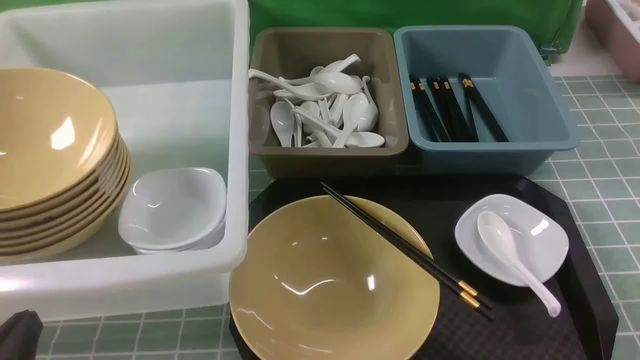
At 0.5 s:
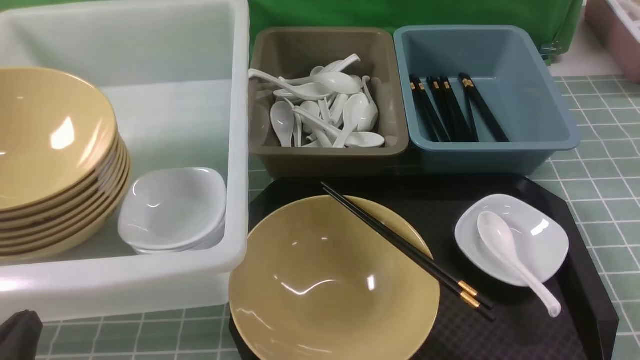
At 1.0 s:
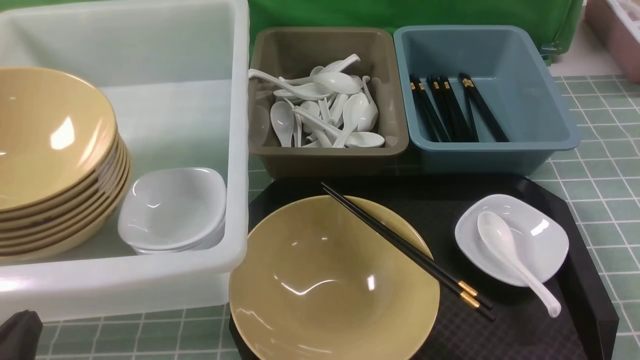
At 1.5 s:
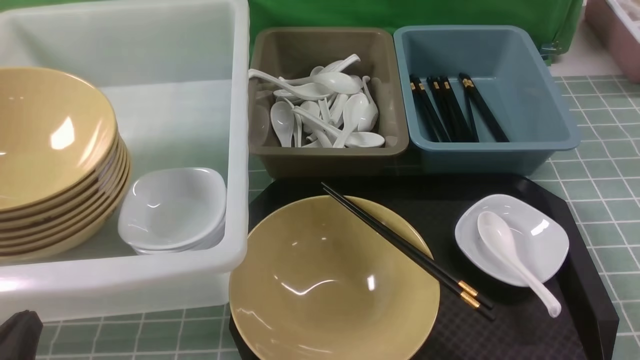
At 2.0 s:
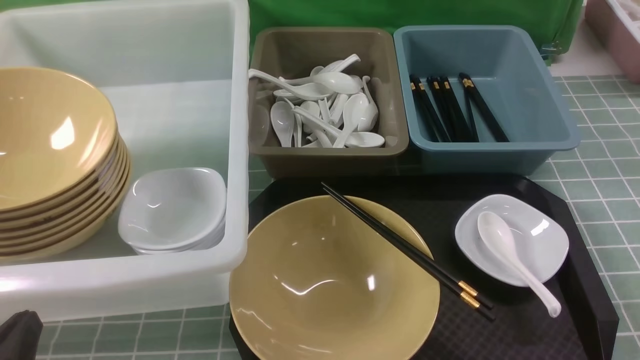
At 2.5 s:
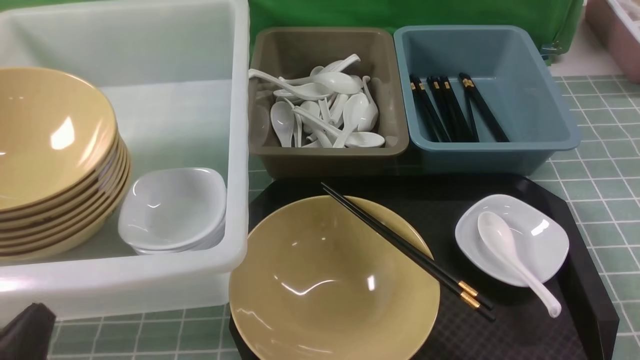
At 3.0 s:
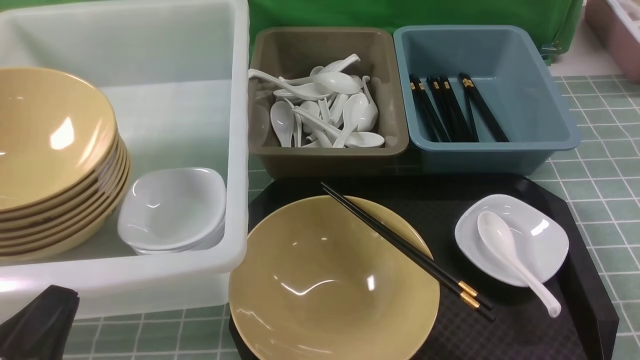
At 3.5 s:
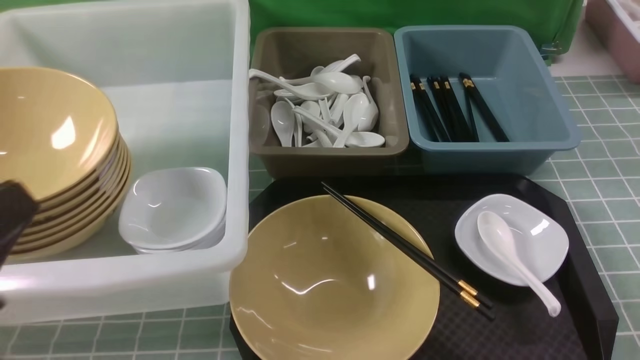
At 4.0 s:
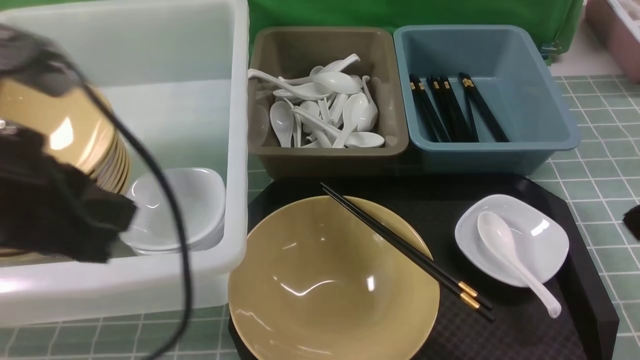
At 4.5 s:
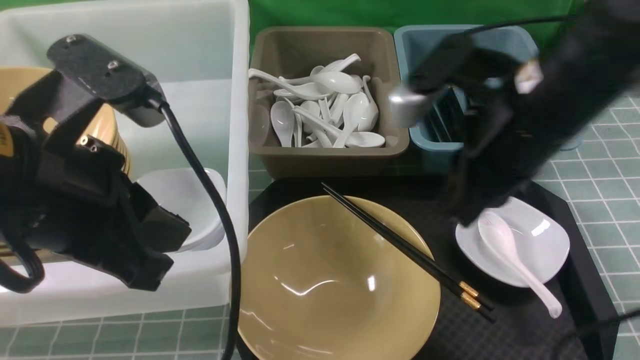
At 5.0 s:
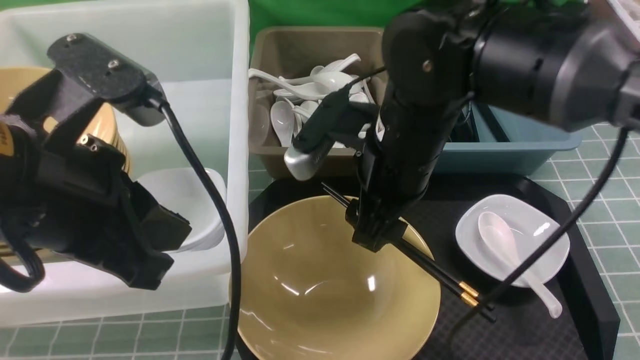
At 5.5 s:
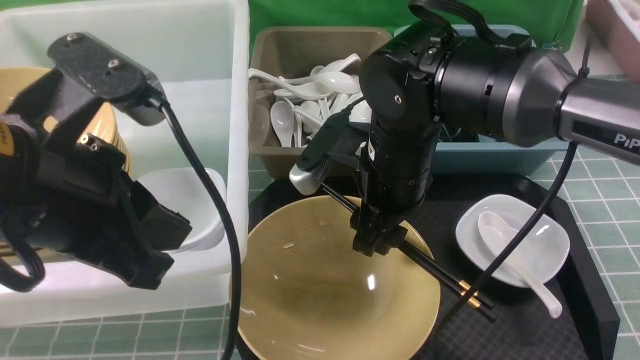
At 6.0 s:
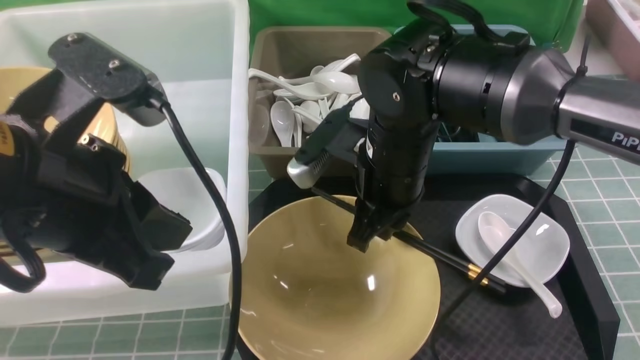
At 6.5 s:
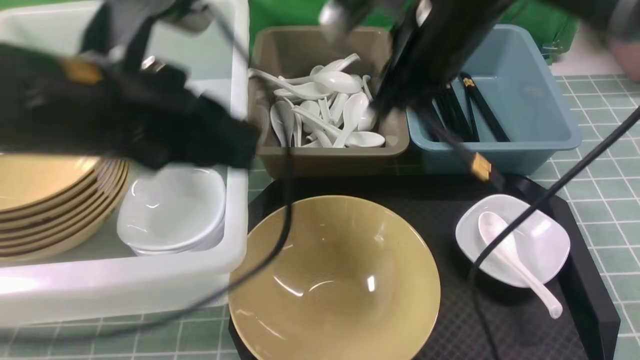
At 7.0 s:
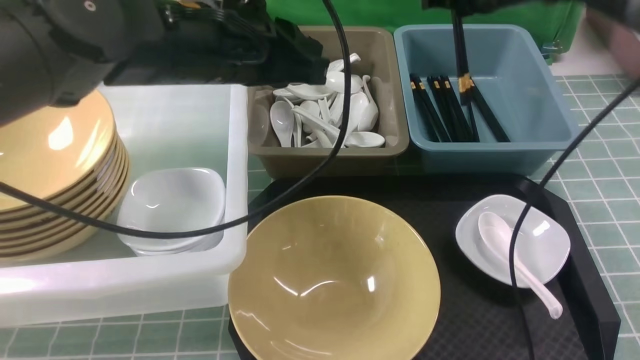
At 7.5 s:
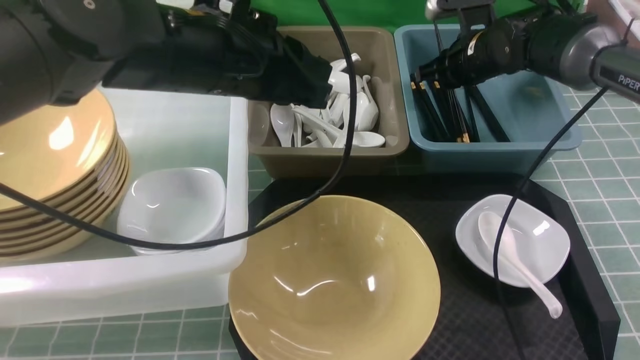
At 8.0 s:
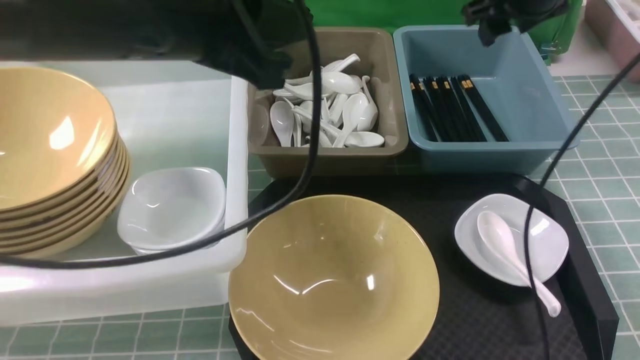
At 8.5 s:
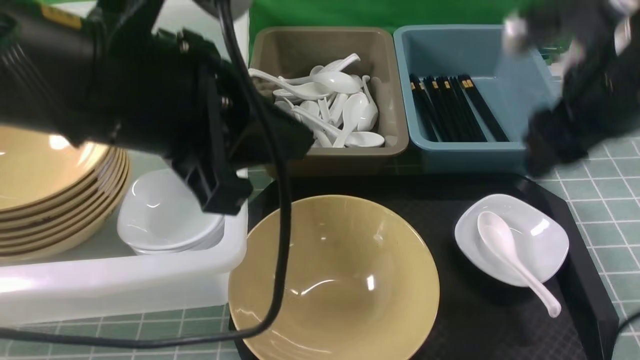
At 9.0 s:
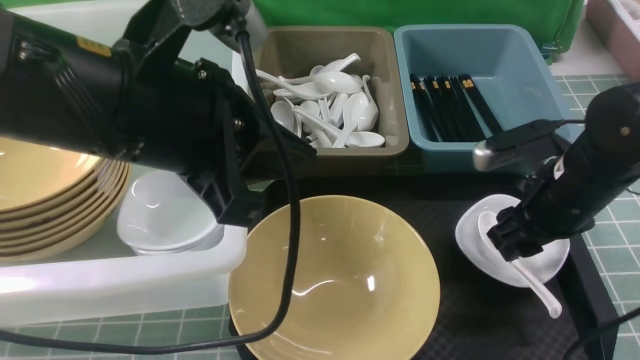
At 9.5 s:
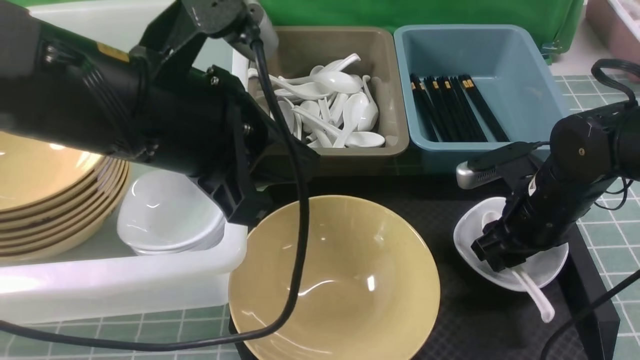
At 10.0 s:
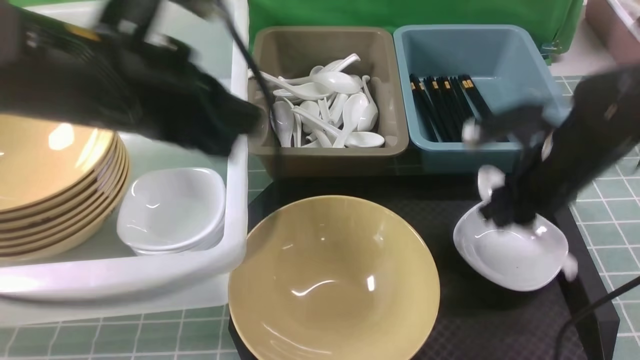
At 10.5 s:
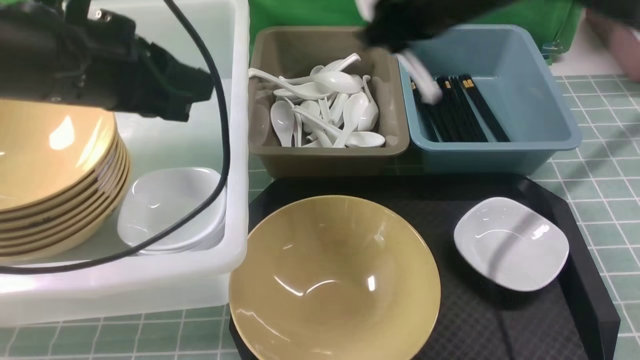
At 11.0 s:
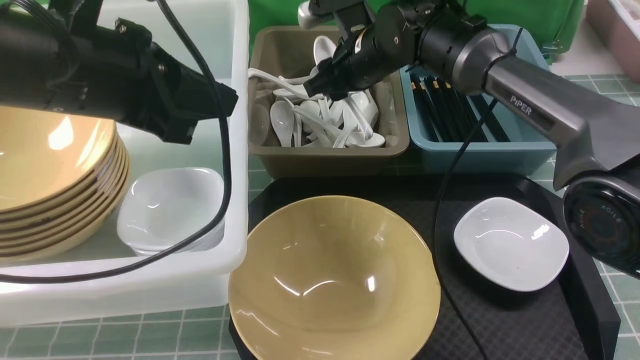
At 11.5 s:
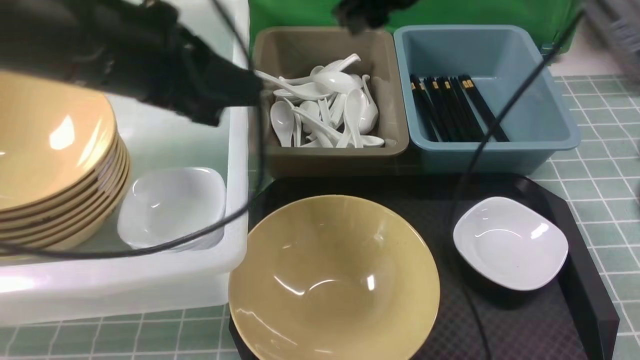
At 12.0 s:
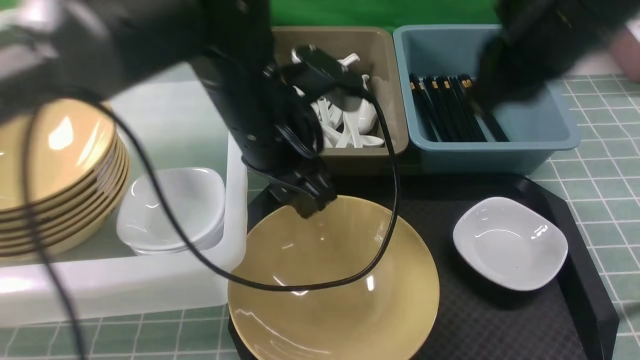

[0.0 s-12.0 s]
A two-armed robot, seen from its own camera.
Task of the whole recording: on blue table put chopsticks spoon bowls plates into blue grey white boxes.
Step, 0.0 to 6.0 s: use the right arm to grab the chopsticks.
Step, 6.5 to 7.5 s: use the right arm to put the chopsticks into the small storage box on the right.
Step, 8.5 to 10.0 s: use the right arm to grab the soup spoon in the middle.
Step, 10.5 to 11.0 s: use the right arm to put the soup spoon into the small storage box in the middle.
0.0 to 2.0 s: Neither gripper changes place.
2.0 to 4.0 s: The left gripper shifts some 20 cm upward and forward.
4.0 to 6.0 s: The right gripper heads to the left, forward and downward, covering approximately 25 cm, and opens, then closes again.
6.0 to 8.0 s: The right gripper is displaced to the right, forward and upward by some 20 cm, and opens its fingers. Meanwhile the left gripper heads forward and to the right, covering about 10 cm.
8.0 to 10.0 s: The left gripper shifts by some 5 cm; the right gripper goes some 15 cm backward and downward.
10.0 to 12.0 s: The left gripper shifts about 15 cm to the right, downward and forward, and opens its fingers. Meanwhile the right gripper moves upward, about 15 cm, reaches some 15 cm forward, then returns, and closes its fingers.

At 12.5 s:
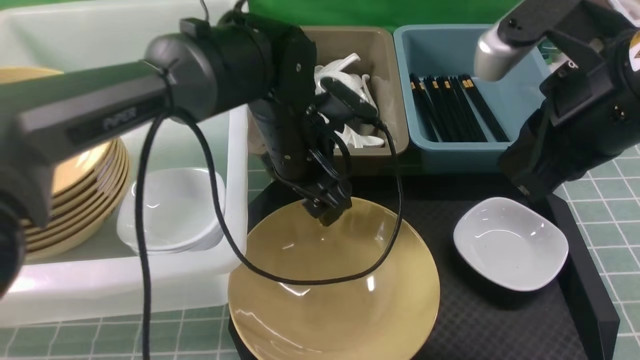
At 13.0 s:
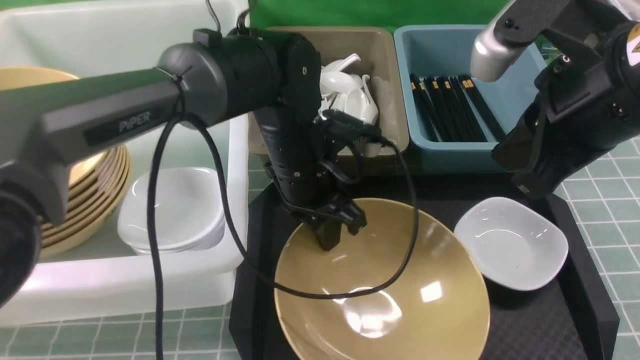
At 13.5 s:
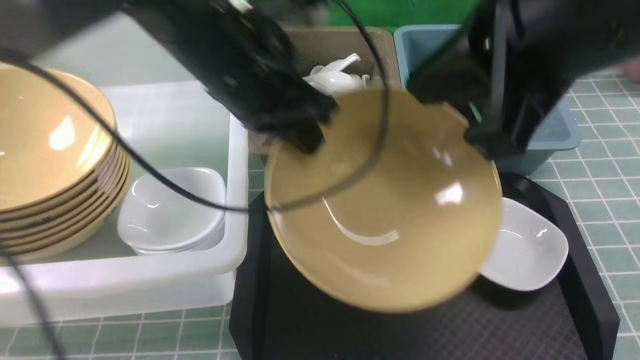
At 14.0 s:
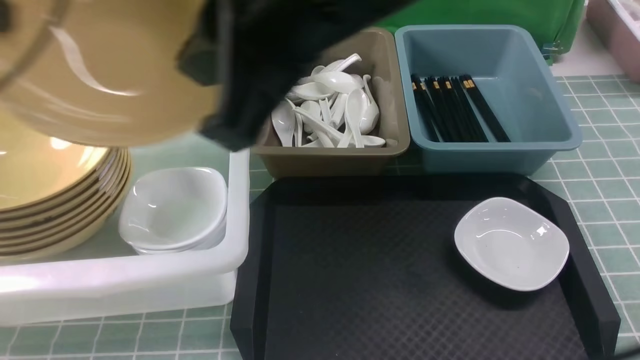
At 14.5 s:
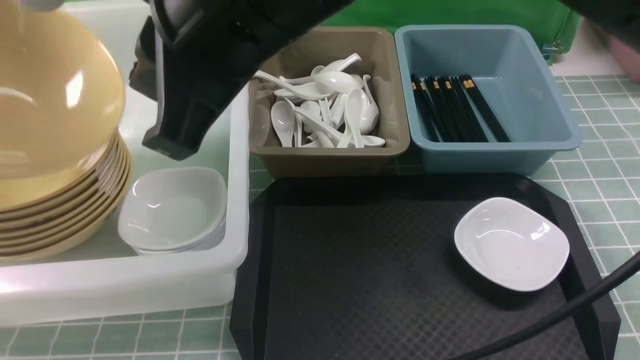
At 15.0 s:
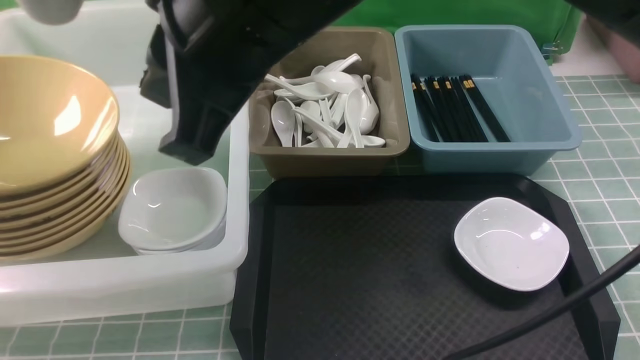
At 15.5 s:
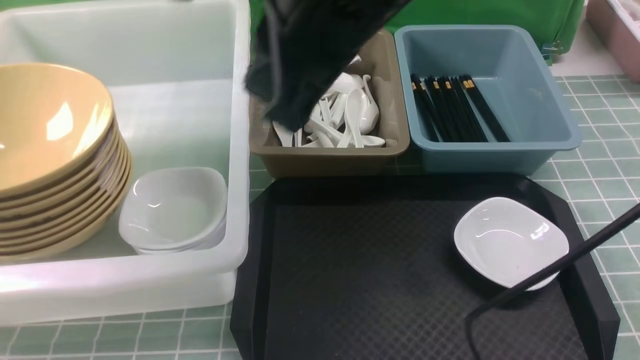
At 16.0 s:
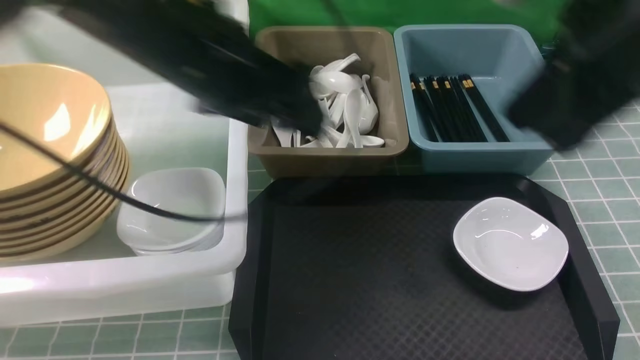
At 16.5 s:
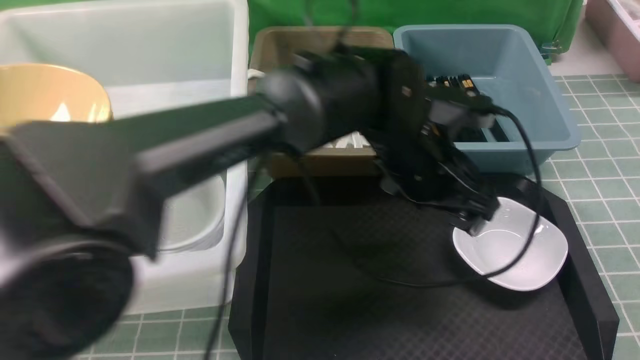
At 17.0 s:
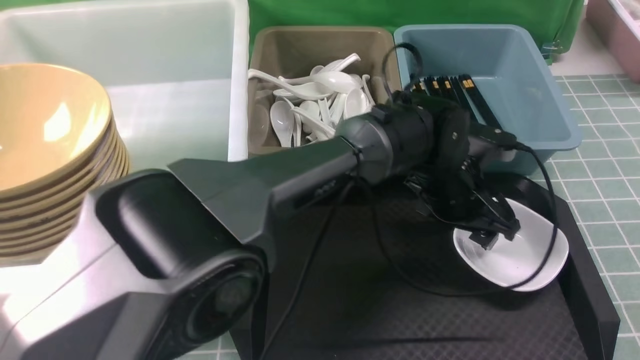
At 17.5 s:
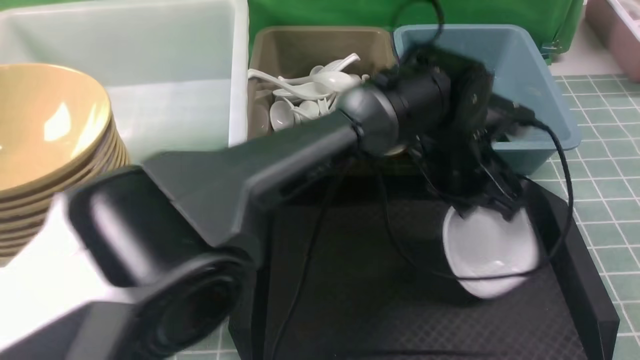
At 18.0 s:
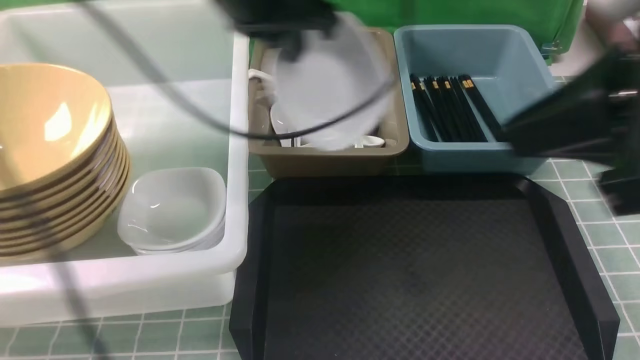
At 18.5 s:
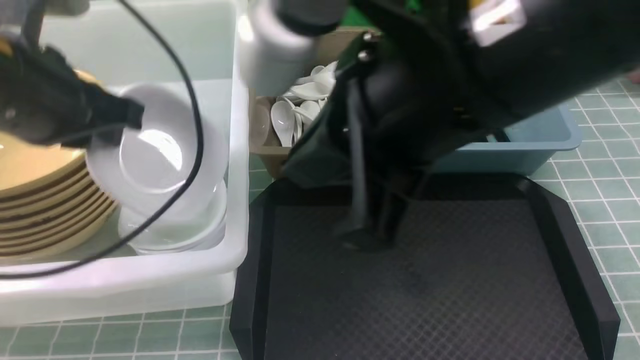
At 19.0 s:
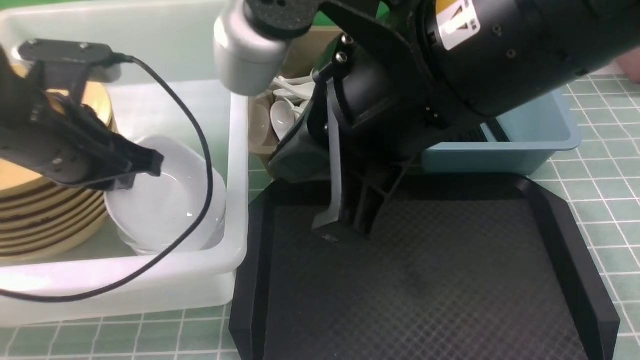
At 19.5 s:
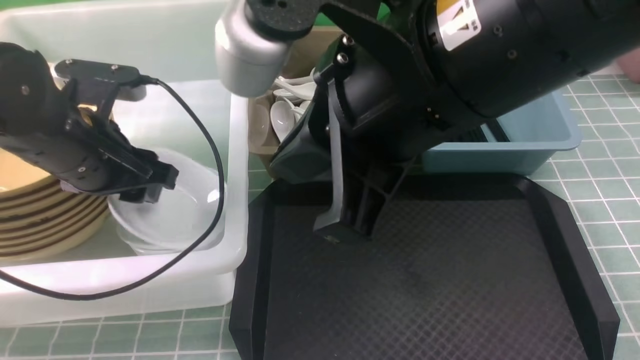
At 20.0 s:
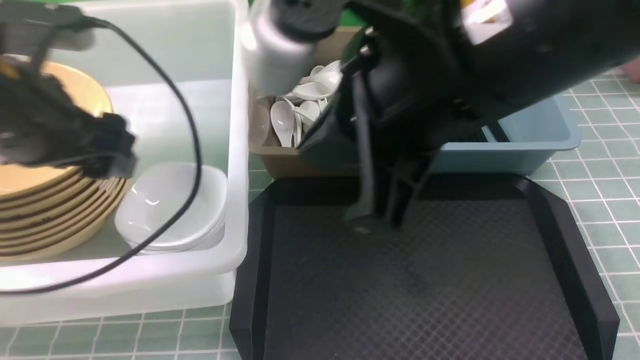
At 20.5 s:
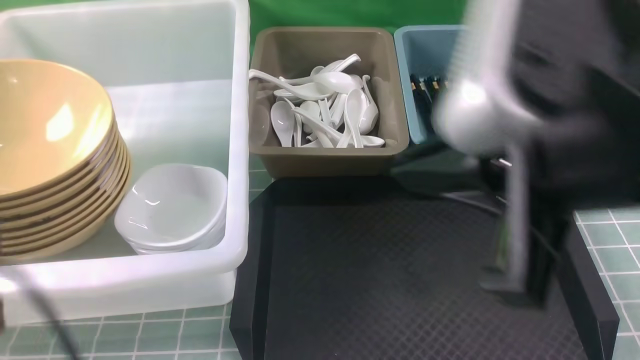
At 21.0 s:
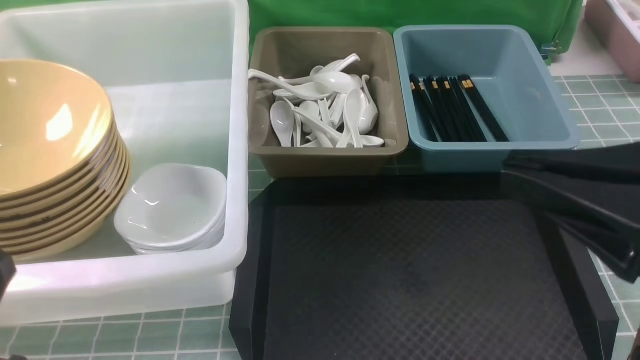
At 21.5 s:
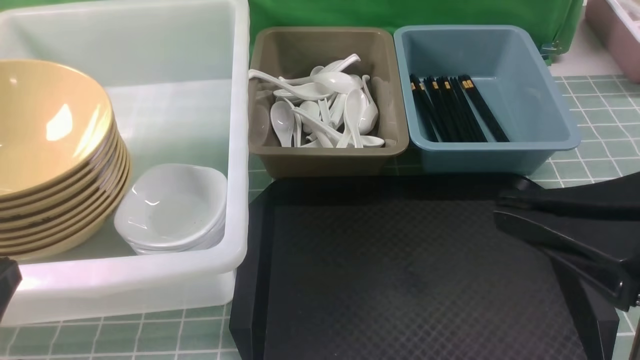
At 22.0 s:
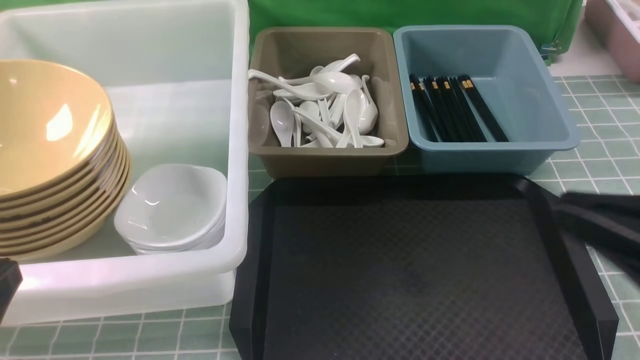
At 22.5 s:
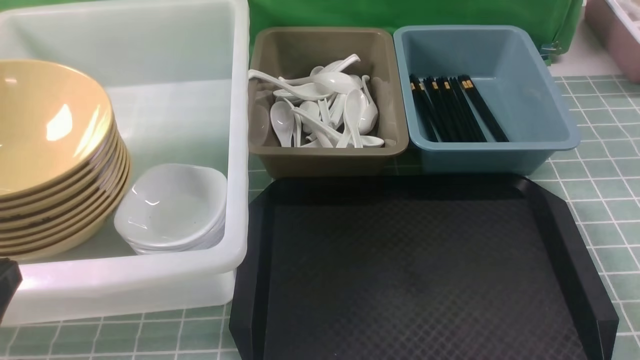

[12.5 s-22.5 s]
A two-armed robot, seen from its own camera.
Task of the whole recording: on blue table put chopsticks spoon bowls plates into blue grey white boxes.
Step, 13.5 to 15.0 s: use the left arm to put the noodle bowl into the large storage box on the left.
Step, 15.5 to 17.5 s: use the left arm to grab the plate.
Step, 18.0 to 19.5 s: use the left arm to put the plate into the large storage box on the left.
12.5 to 14.5 s: The right gripper moves to the left, some 20 cm, while the left gripper is displaced to the left by some 35 cm, and closes up.
14.5 to 16.5 s: The right gripper shifts some 30 cm to the right. The left gripper travels to the right by approximately 50 cm, and opens.
16.5 to 18.5 s: The right gripper travels to the left by approximately 20 cm. Meanwhile the left gripper goes approximately 30 cm to the left and upward, and closes.
18.5 to 20.5 s: The right gripper shifts roughly 5 cm to the right; the left gripper goes some 20 cm backward, and opens and closes again.
20.5 to 22.5 s: The right gripper goes approximately 25 cm downward and to the right. Meanwhile the left gripper moves downward, about 5 cm.
